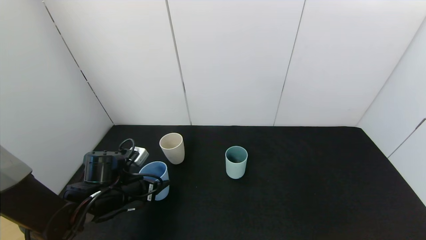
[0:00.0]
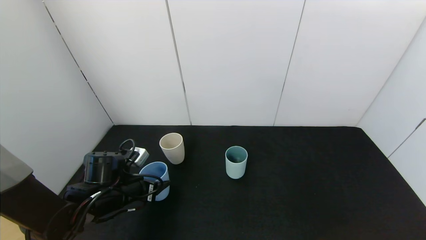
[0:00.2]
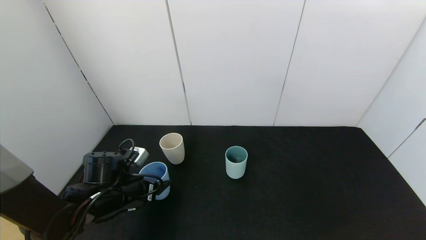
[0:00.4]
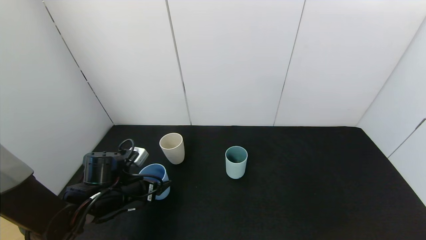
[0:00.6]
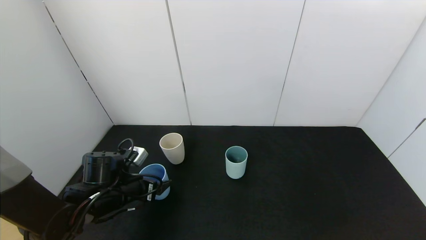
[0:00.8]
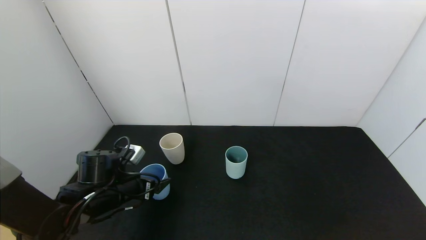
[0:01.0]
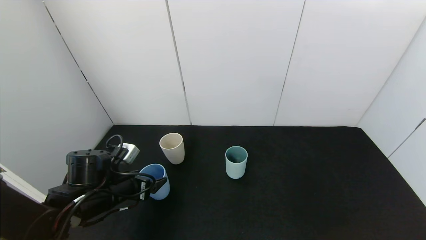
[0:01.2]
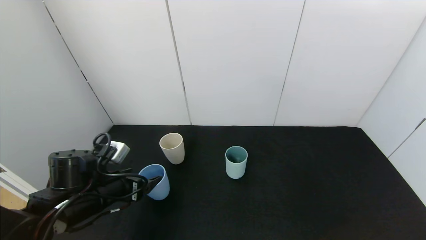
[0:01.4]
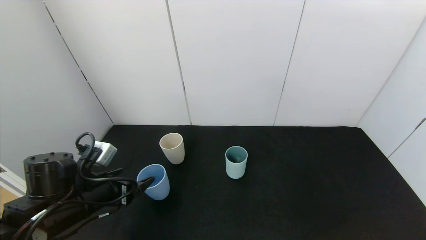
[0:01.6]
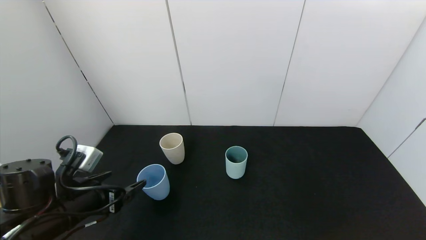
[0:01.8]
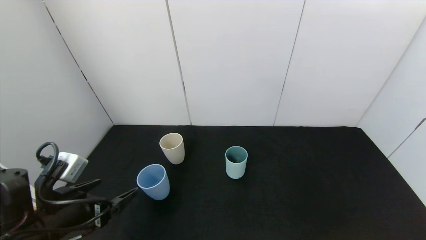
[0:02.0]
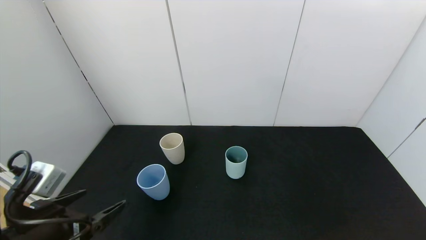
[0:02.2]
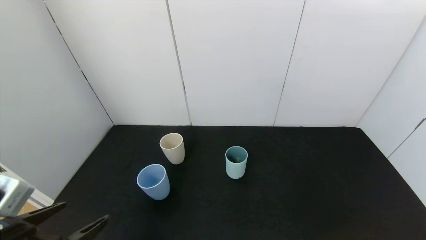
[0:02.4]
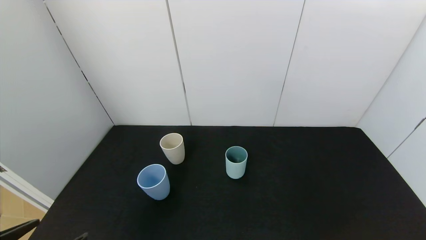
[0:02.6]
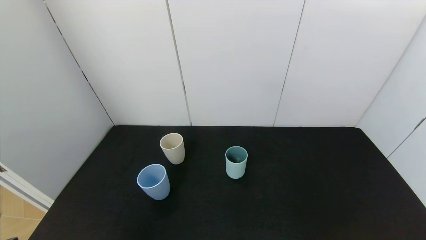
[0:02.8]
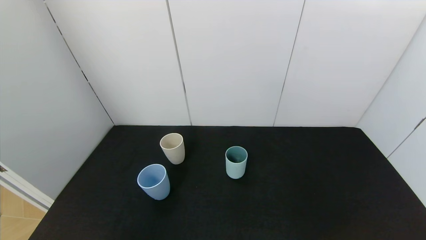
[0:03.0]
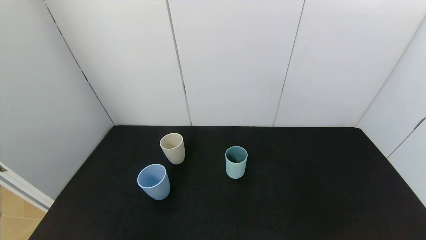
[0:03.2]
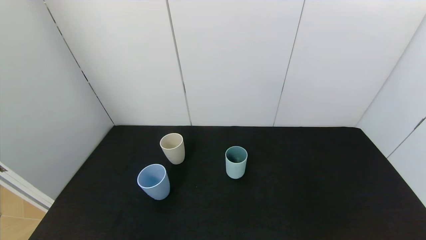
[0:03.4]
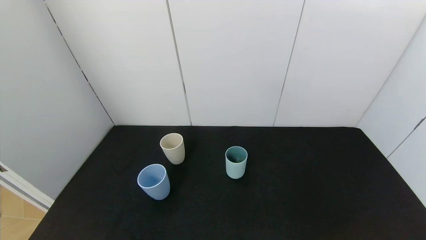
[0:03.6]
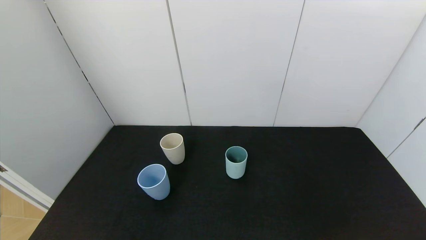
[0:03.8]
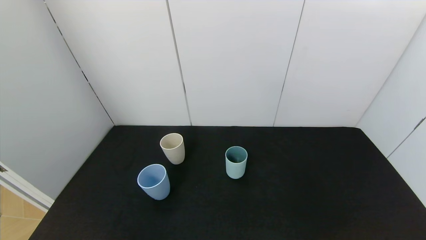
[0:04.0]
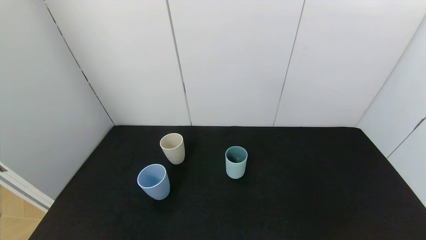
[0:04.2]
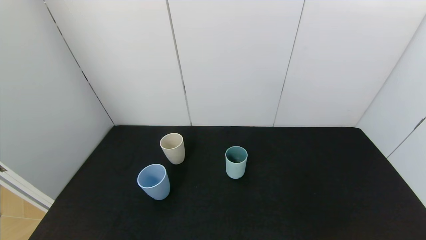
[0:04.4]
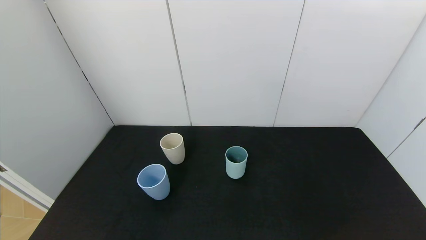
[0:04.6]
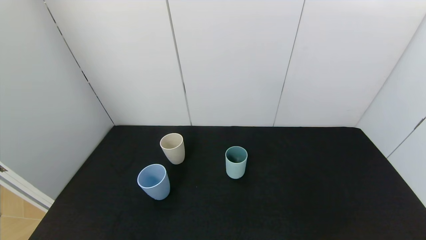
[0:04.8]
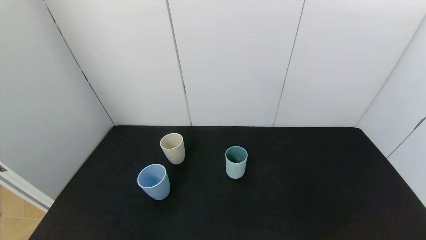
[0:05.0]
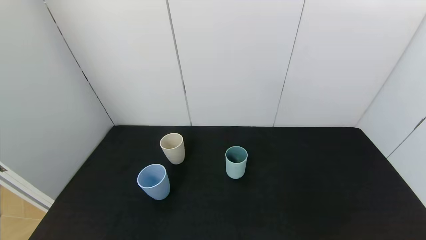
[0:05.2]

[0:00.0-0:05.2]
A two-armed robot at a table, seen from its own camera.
Task of the whole recording: use the gripper to pour the water into the other two cups on black table.
Step, 0:00.0 to 0:02.0: Place the blue cup with the left gripper.
0:00.0 to 0:01.8: The left gripper moves backward and upward, roughly 10 cm, and opens its fingers.
0:01.8 to 0:03.4: The left gripper heads backward, covering approximately 25 cm.
